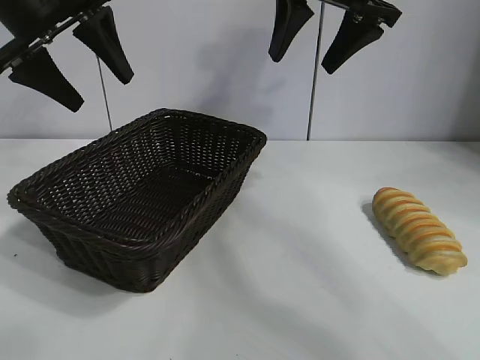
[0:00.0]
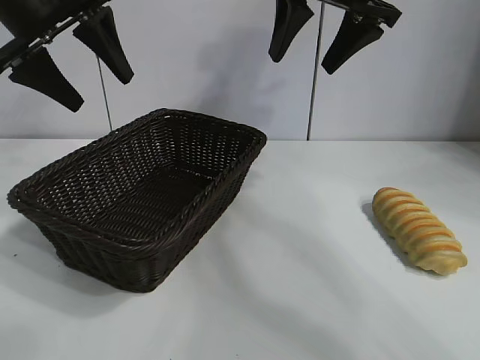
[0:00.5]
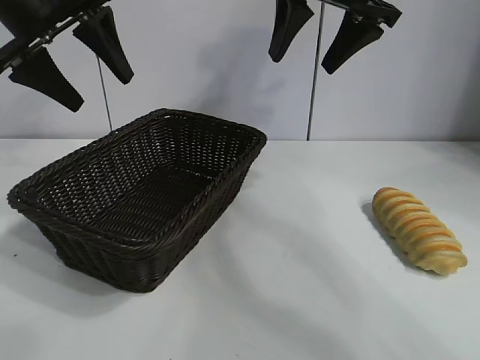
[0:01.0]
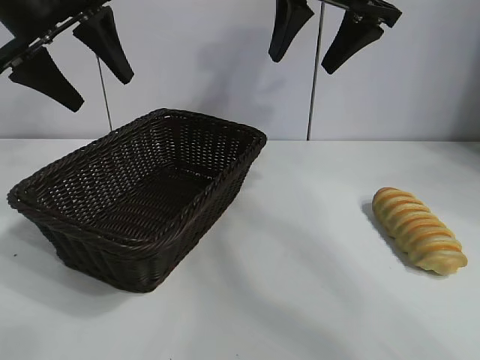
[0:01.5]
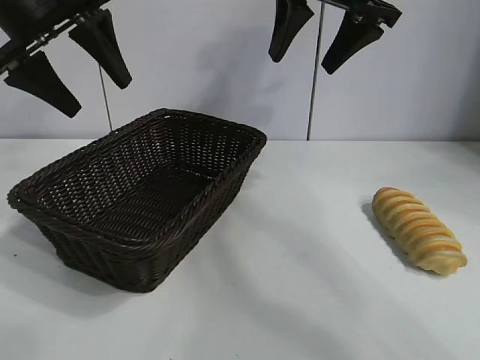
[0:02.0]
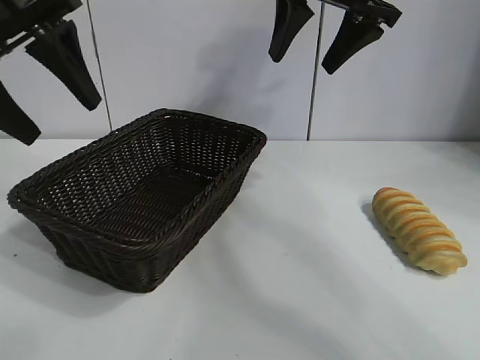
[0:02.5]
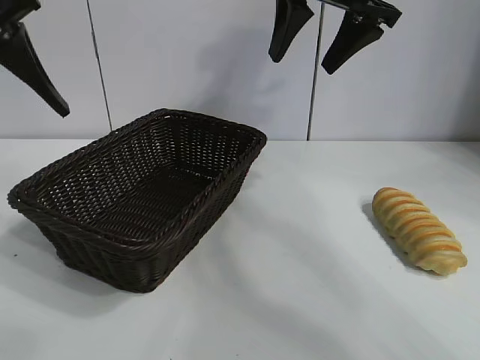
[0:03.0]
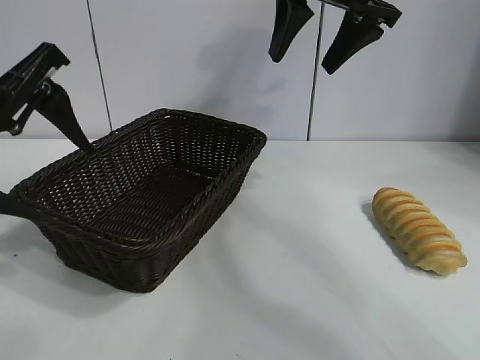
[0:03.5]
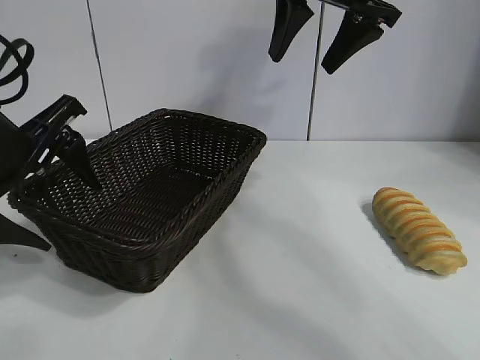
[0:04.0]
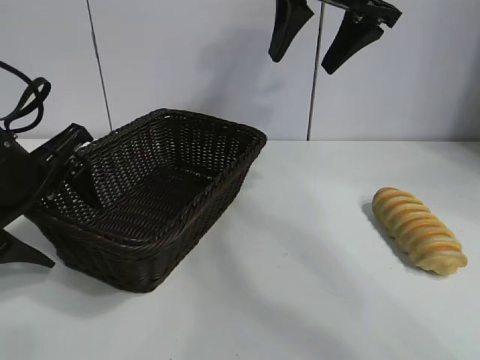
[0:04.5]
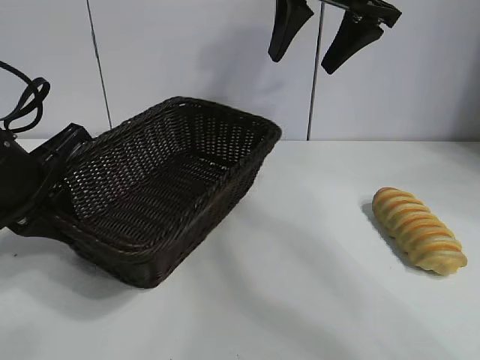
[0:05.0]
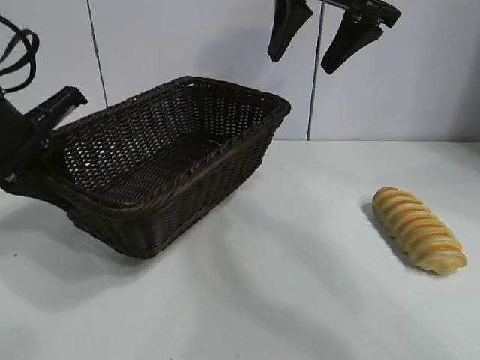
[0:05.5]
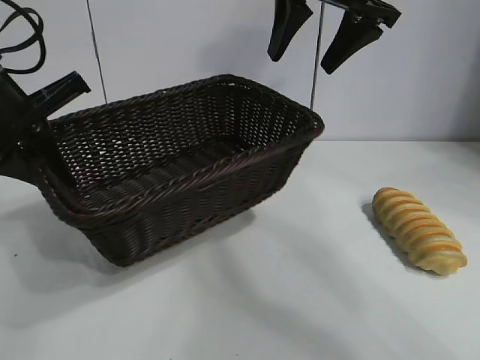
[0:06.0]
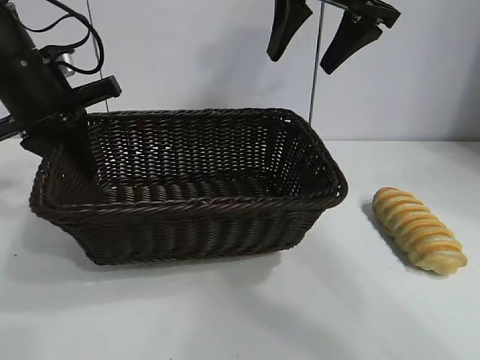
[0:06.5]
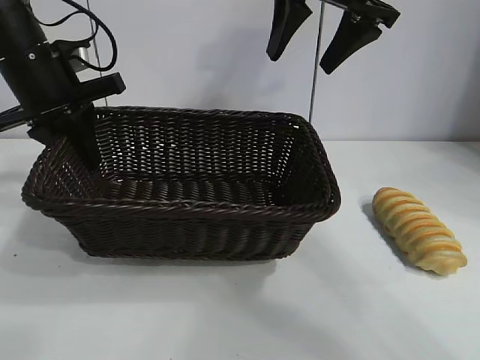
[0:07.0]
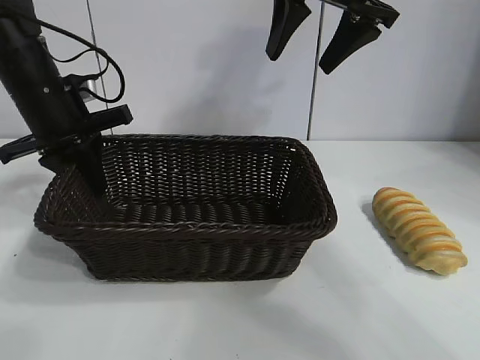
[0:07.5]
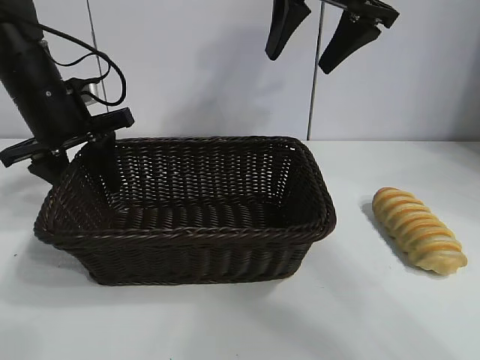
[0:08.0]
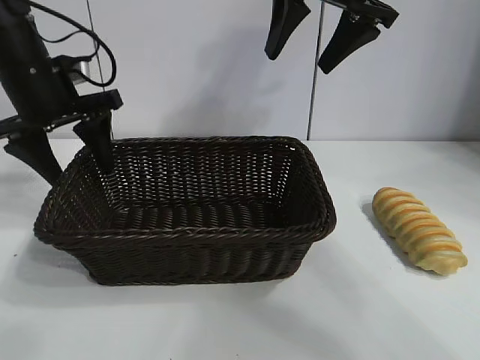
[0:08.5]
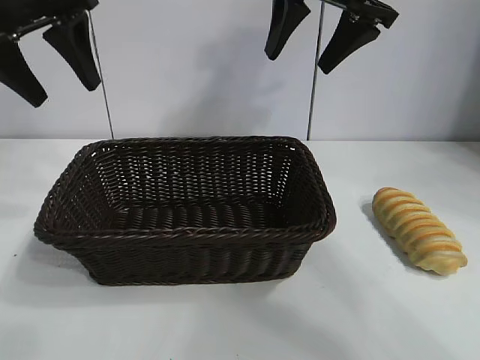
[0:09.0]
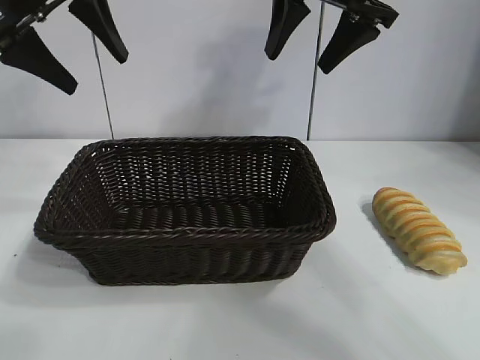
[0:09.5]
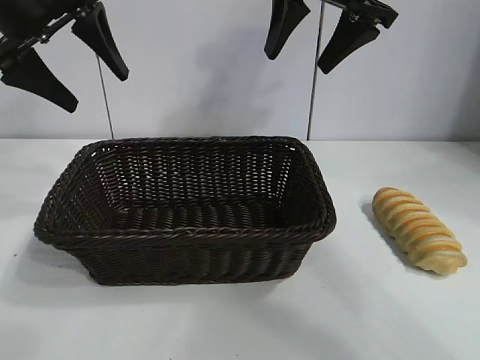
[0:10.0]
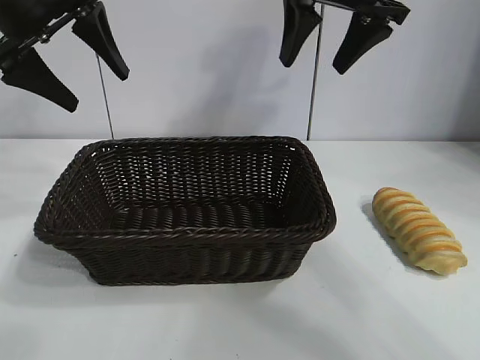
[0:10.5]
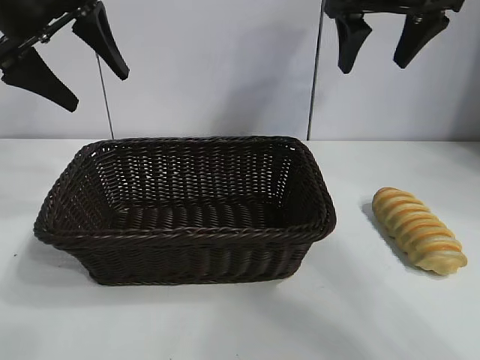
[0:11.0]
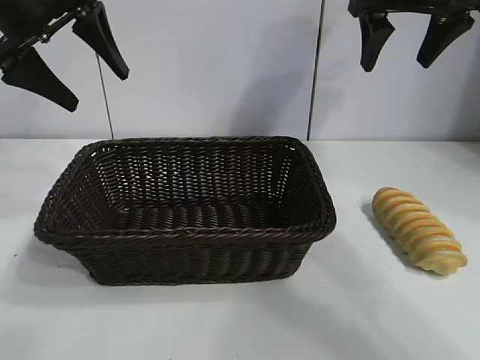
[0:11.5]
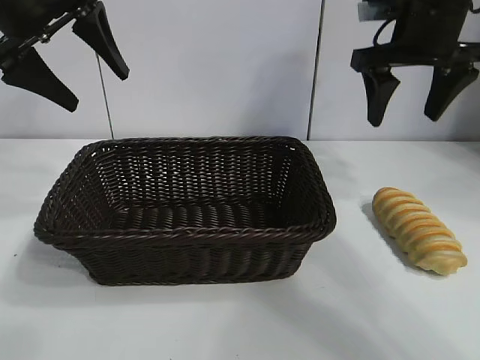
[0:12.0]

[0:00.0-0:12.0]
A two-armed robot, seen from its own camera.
Task of the whole recording: pick up the long bread and put it into the basket.
Step, 0:02.0 to 0:05.0: Grasp the basket with the left gripper.
Step, 0:05.5 to 0:08.0: Place the basket in the center of the table with the left gripper.

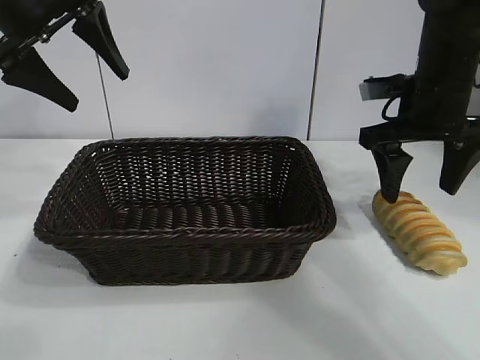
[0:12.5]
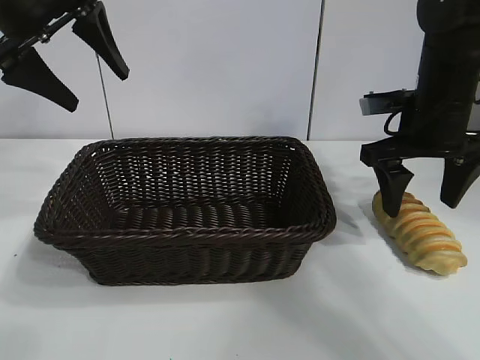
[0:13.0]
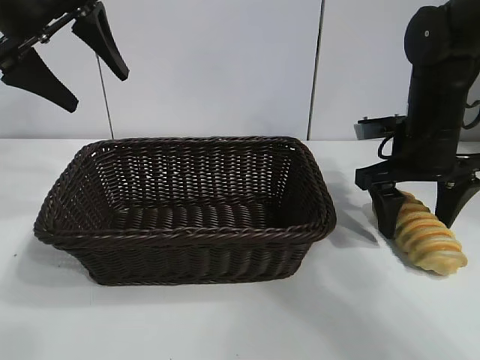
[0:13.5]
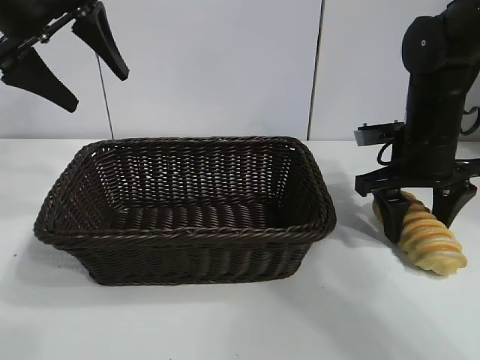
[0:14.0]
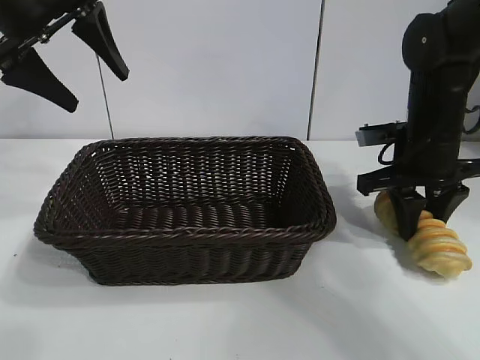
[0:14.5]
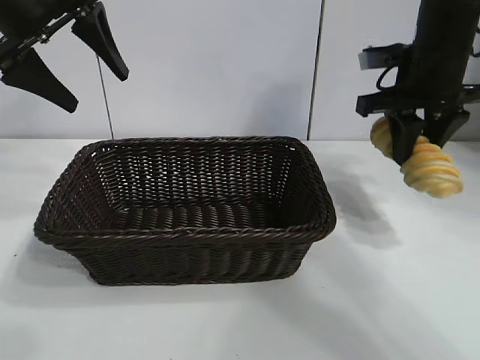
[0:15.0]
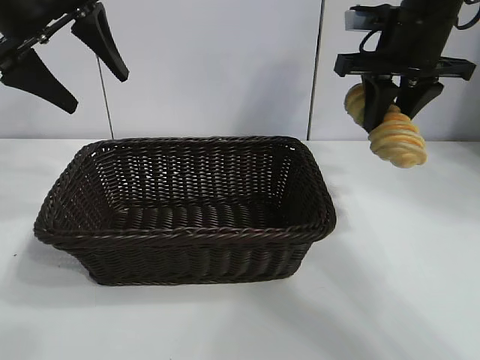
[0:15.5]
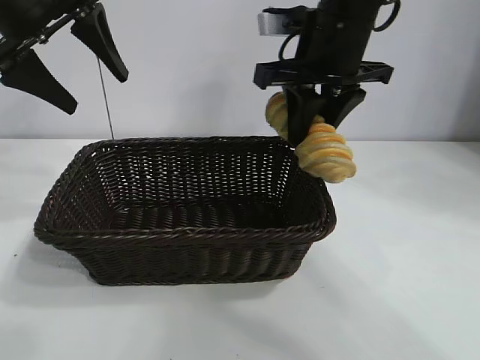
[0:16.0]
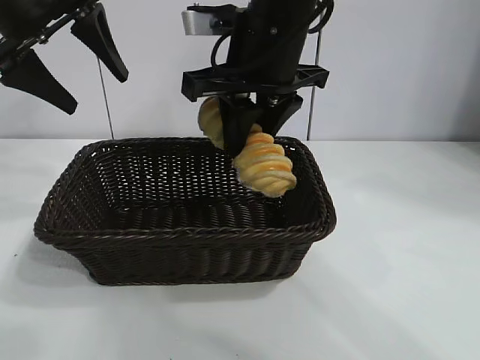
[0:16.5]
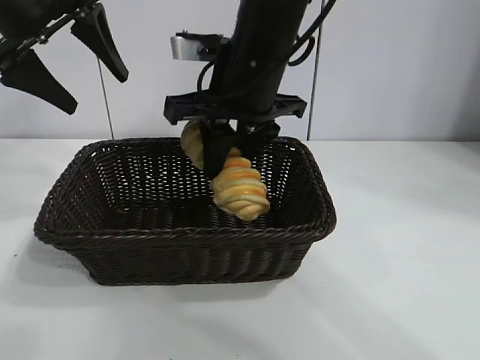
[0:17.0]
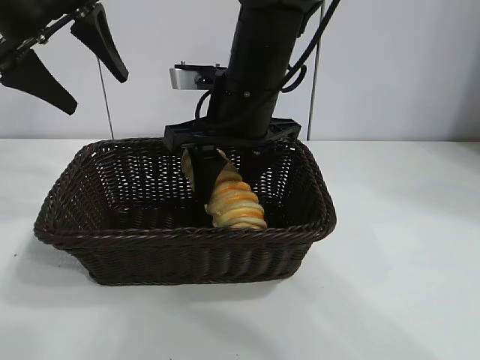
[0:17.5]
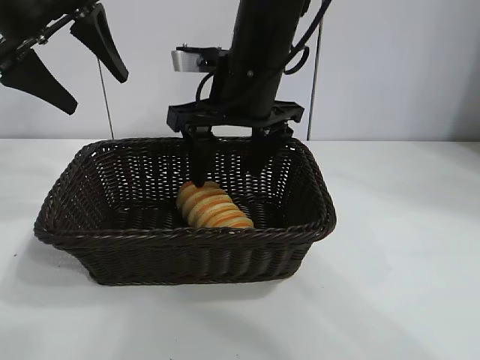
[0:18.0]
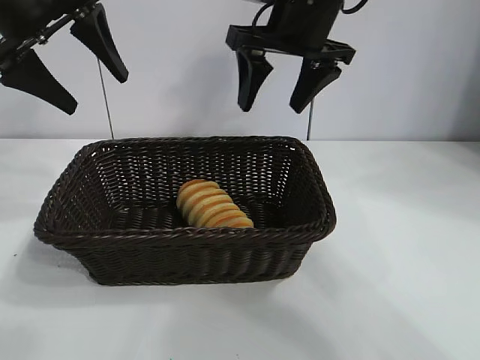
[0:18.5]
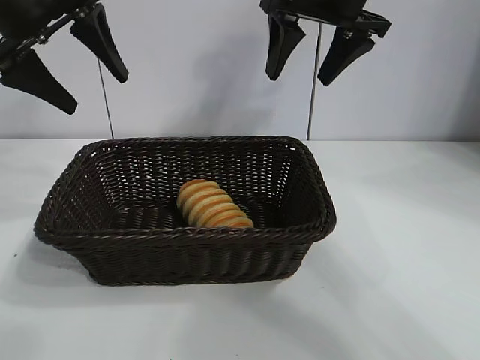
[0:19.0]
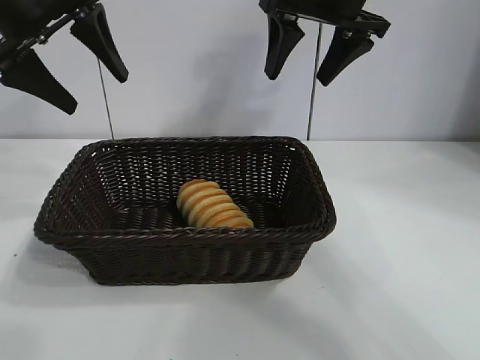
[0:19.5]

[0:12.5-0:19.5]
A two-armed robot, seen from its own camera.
Task of the whole recording: pick up the long bread and put it into the basket.
Step, 0:14.5 to 0:17.5: Place the long bread in the basket with right gripper.

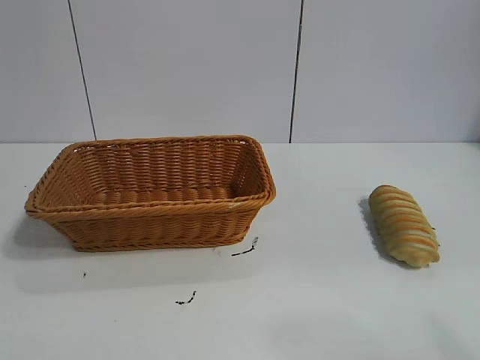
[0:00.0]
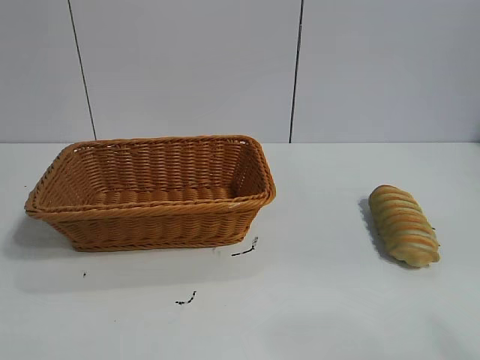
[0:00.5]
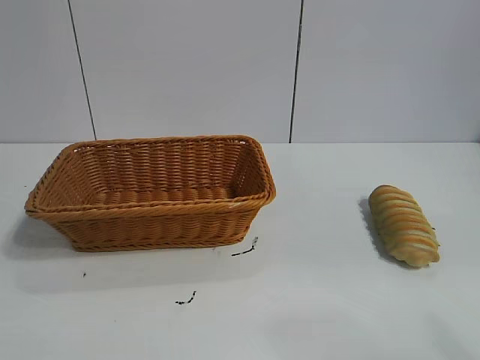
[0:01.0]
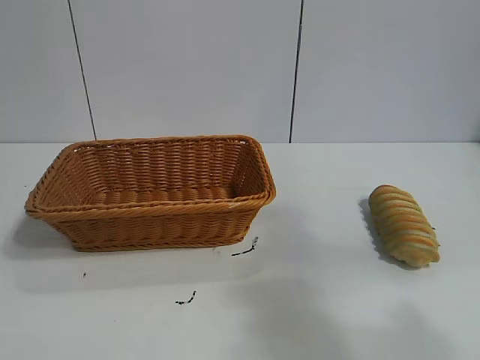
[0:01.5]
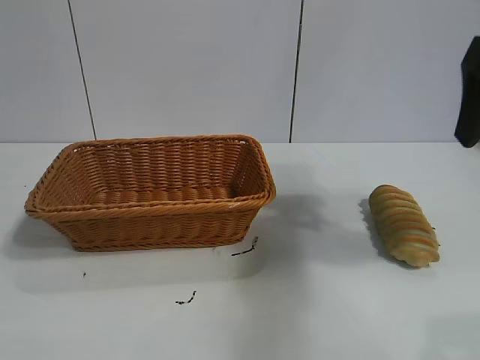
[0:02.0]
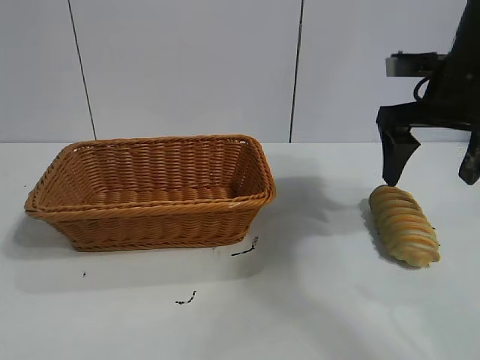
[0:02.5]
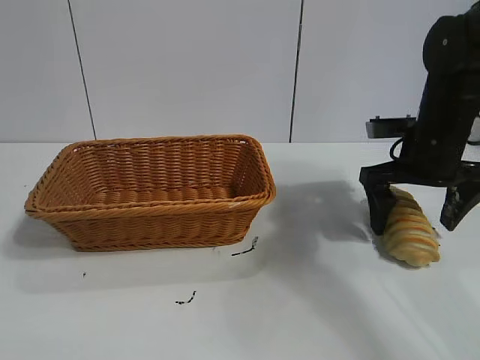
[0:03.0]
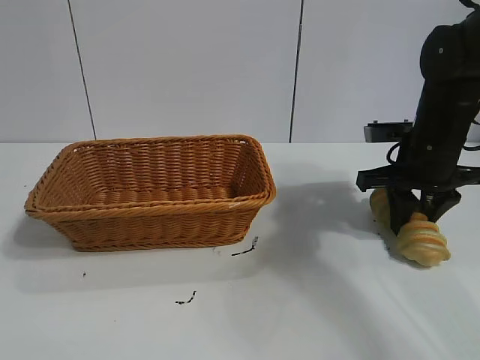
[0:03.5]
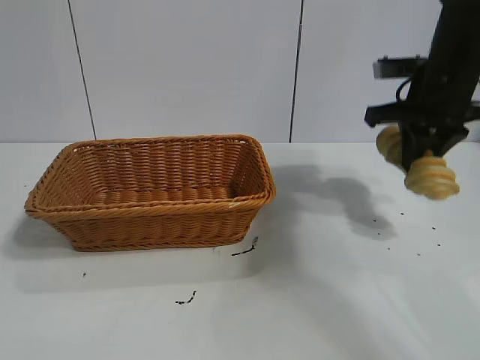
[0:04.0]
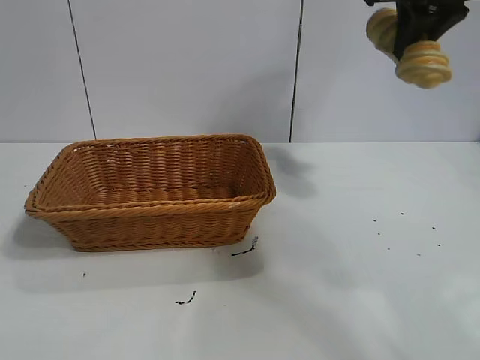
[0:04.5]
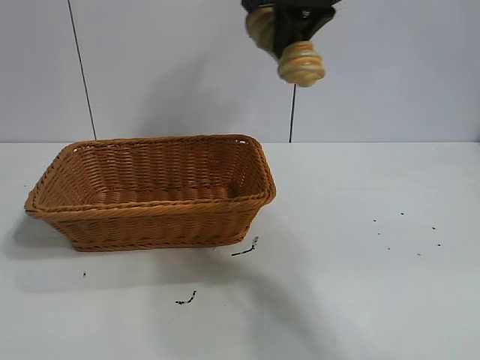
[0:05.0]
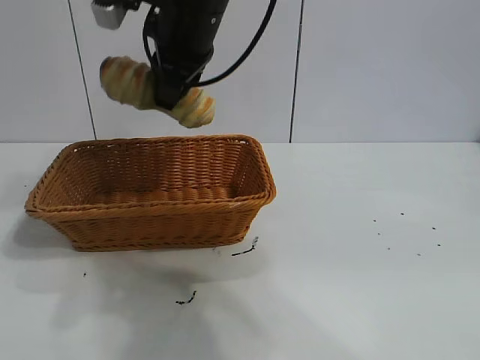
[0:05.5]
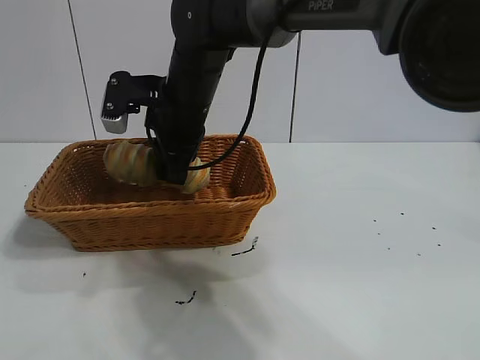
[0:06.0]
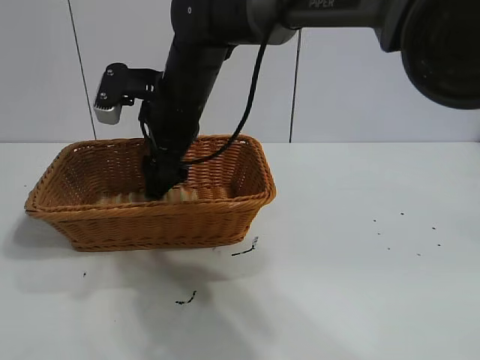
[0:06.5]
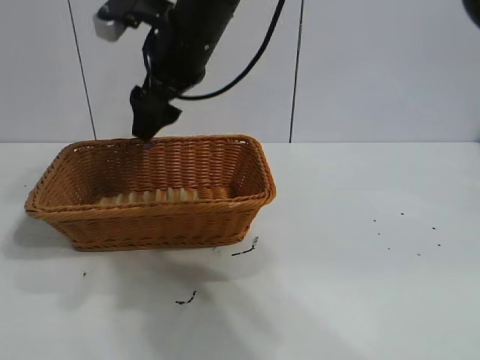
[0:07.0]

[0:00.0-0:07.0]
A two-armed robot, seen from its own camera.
Task of the whole recording: pick up the long bread and put it into the basket.
Step, 0:02.0 to 0:03.5: Grasp the long bread with right gripper.
Step, 0:04.0 to 0:06.5: Place the long bread in the basket with right gripper.
